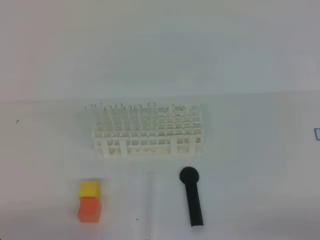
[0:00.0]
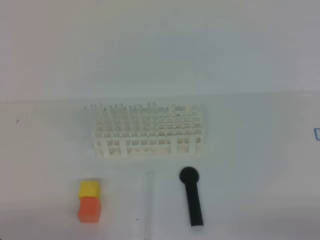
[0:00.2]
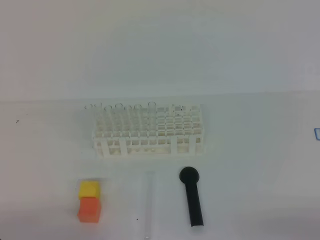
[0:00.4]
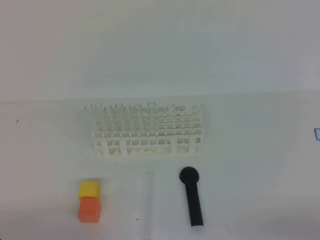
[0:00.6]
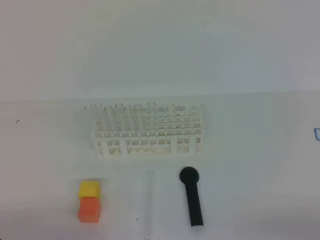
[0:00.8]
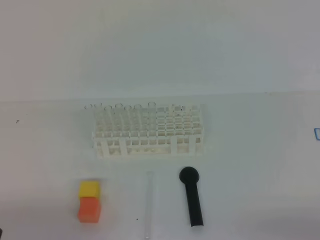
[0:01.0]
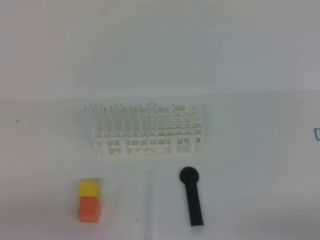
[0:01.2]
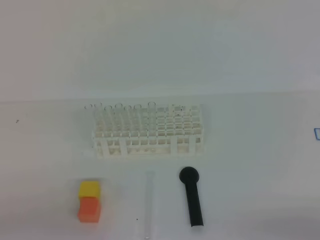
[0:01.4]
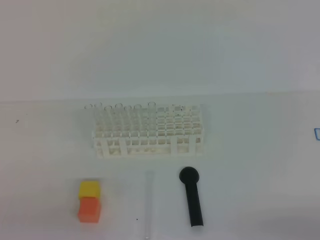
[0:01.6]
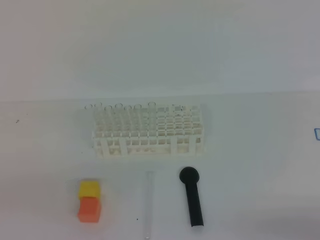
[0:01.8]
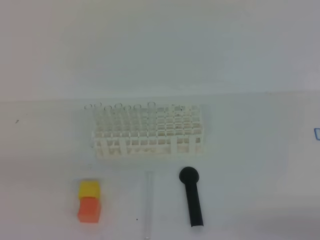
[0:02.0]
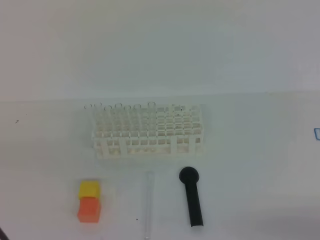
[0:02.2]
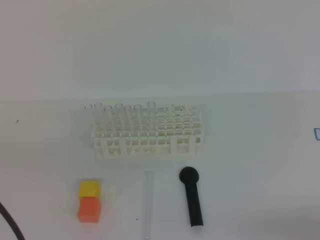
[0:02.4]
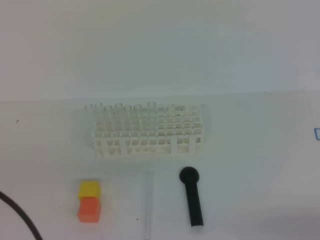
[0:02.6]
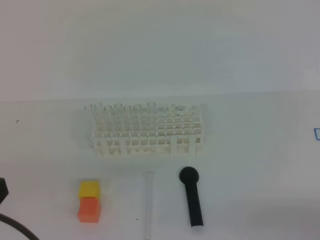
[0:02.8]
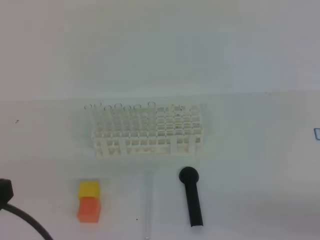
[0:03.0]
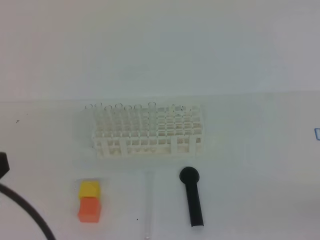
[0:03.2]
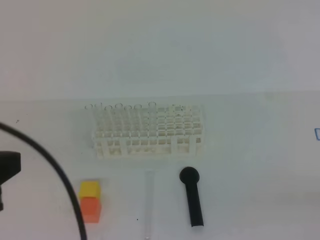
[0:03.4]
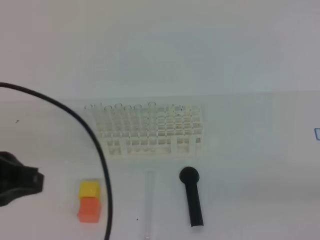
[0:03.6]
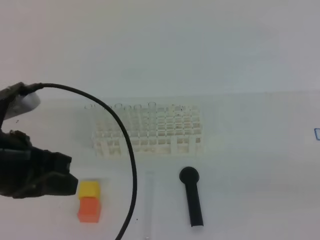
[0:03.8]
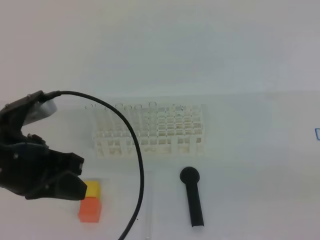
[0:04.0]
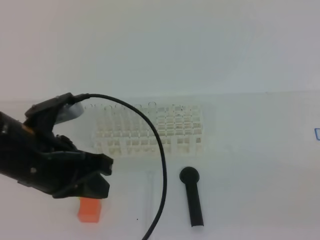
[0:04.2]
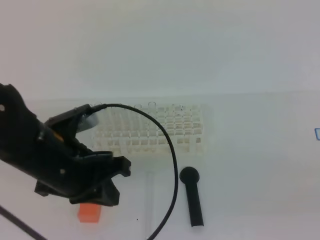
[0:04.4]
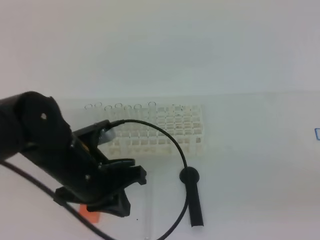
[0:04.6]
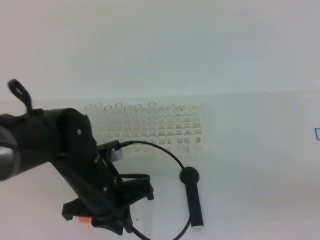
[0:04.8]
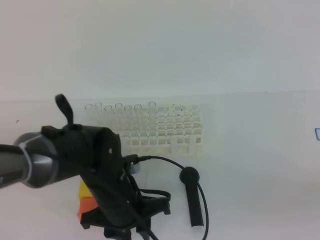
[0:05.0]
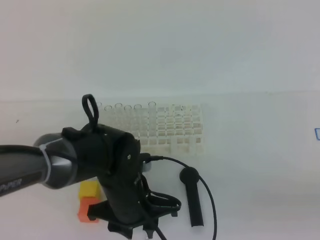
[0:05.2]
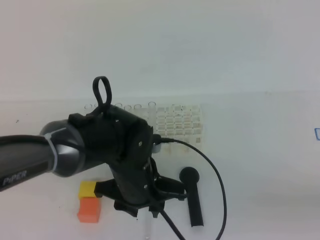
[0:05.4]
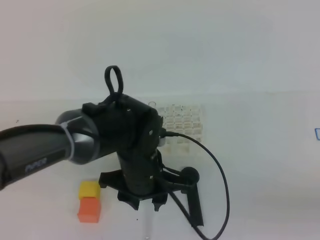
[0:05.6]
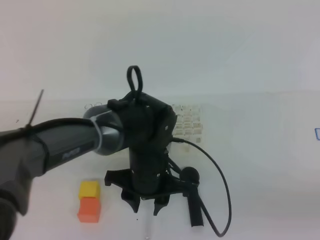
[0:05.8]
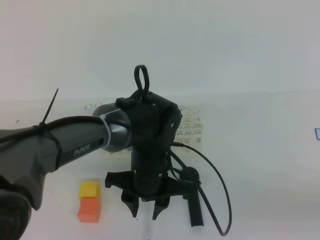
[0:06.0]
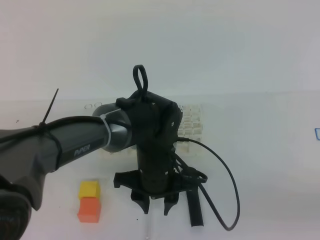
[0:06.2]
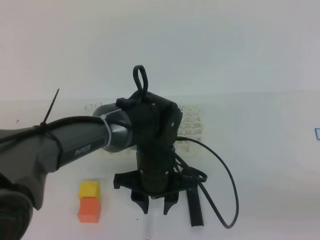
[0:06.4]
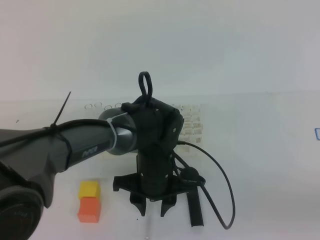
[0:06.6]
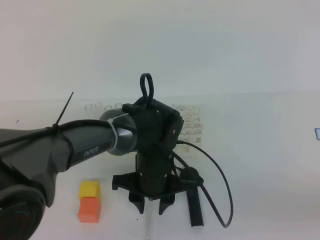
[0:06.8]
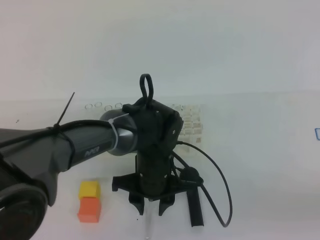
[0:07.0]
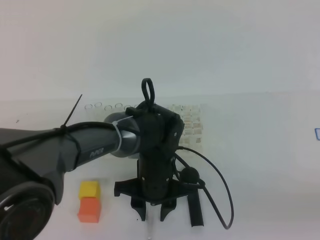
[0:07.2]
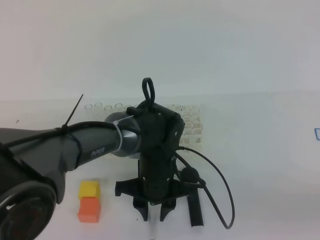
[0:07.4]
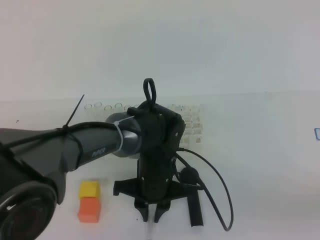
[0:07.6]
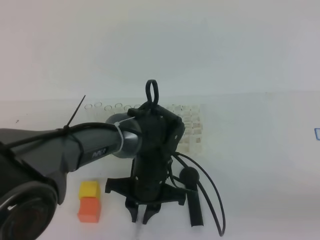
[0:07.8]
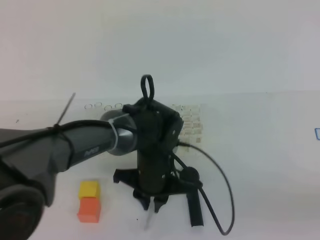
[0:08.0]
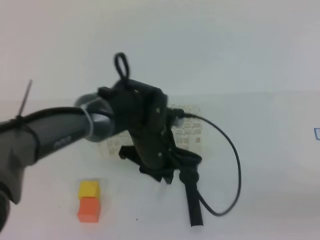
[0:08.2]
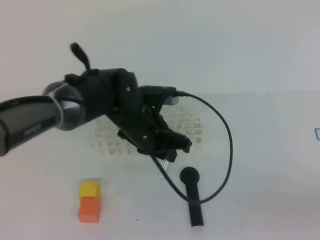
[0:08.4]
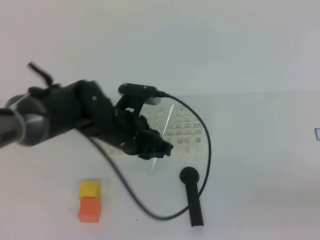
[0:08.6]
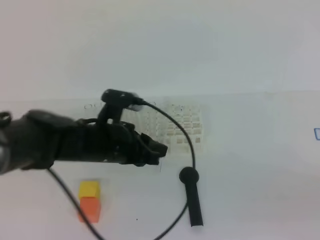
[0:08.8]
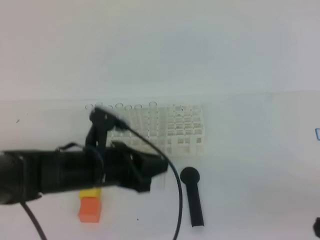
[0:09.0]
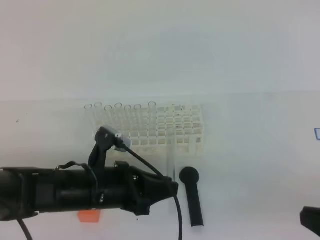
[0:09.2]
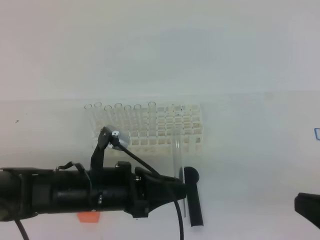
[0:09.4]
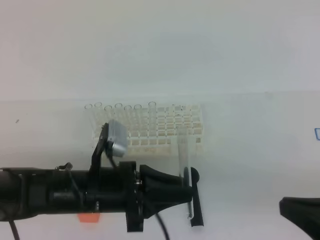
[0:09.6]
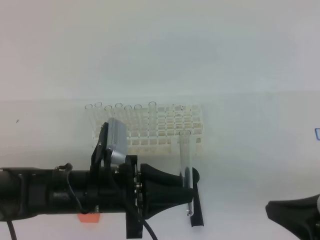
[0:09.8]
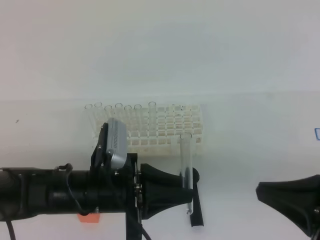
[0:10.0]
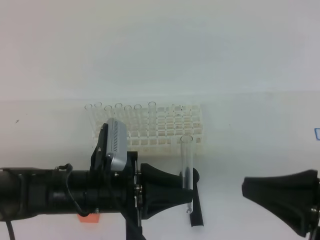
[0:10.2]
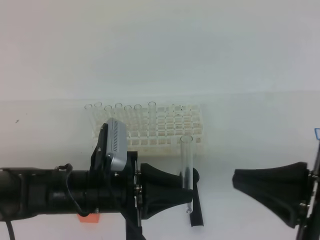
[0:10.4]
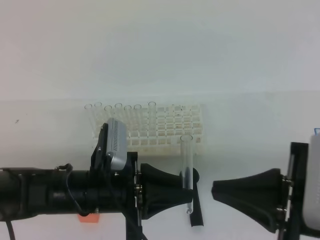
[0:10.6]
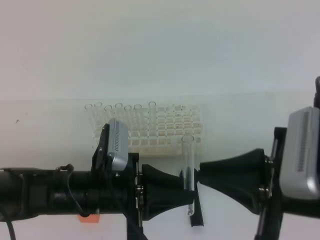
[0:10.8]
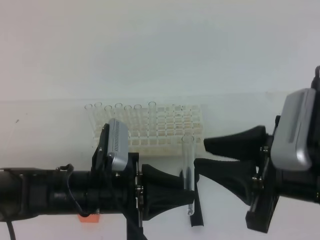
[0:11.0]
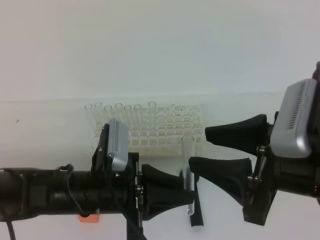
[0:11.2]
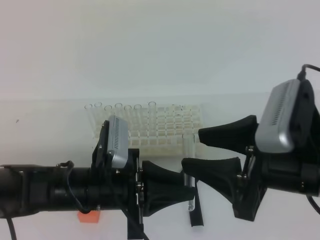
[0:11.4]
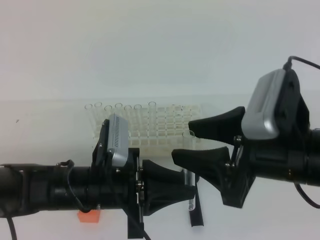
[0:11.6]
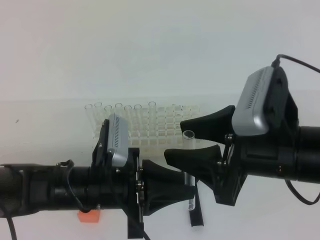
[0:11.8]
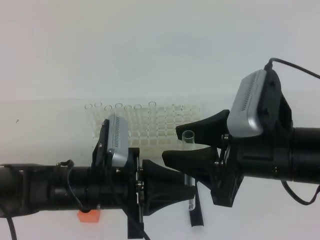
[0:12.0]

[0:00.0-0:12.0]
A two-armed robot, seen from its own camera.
0:01.6 to 0:03.0: The left gripper shifts about 10 cm upward.
0:03.0 to 0:04.4: The right gripper is displaced upward by roughly 10 cm, while the left gripper travels forward, to the right and downward by approximately 20 cm.
0:04.4 to 0:06.0: The left gripper goes some 20 cm to the right, downward and forward, and opens up.
0:06.0 to 0:07.6: The left gripper closes its fingers.
0:07.6 to 0:09.0: The left gripper goes approximately 10 cm to the left.
0:09.0 to 0:10.4: The left gripper heads backward, covering roughly 5 cm. Meanwhile the right gripper travels to the left and forward by roughly 10 cm.
0:10.4 to 0:12.0: The right gripper moves forward and to the left, about 10 cm, and opens up.

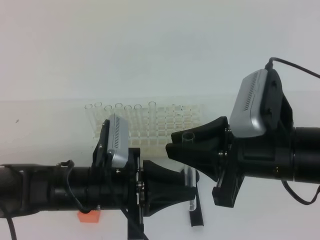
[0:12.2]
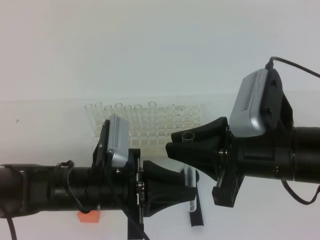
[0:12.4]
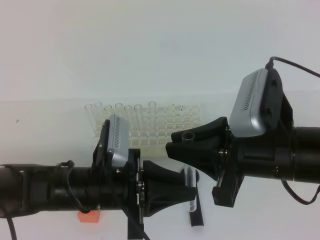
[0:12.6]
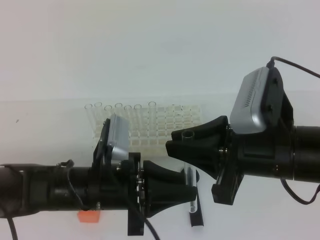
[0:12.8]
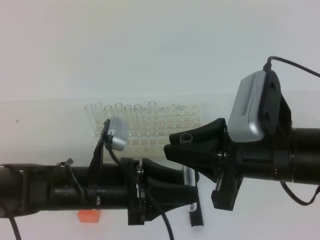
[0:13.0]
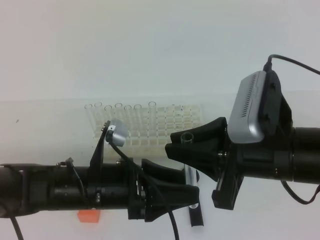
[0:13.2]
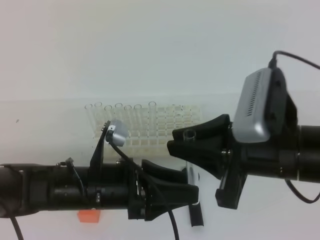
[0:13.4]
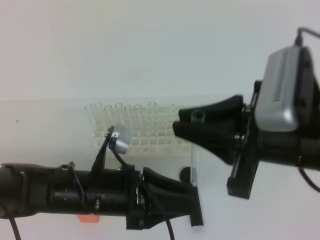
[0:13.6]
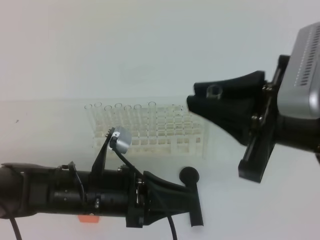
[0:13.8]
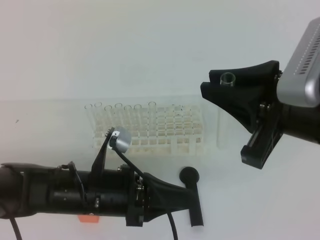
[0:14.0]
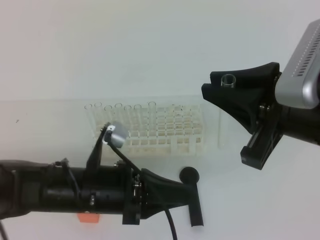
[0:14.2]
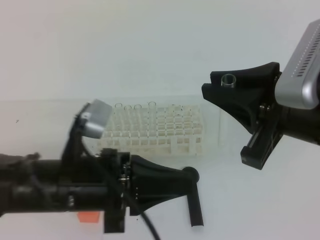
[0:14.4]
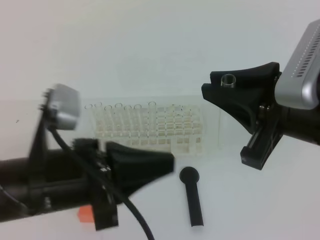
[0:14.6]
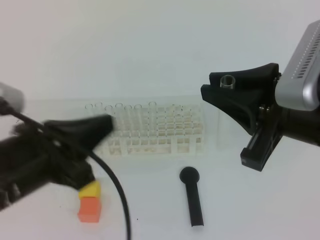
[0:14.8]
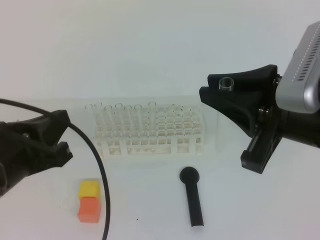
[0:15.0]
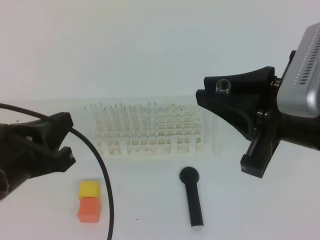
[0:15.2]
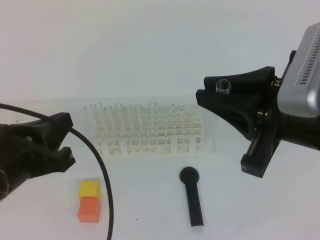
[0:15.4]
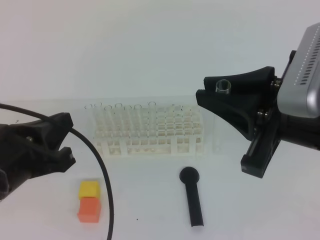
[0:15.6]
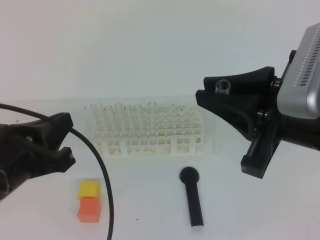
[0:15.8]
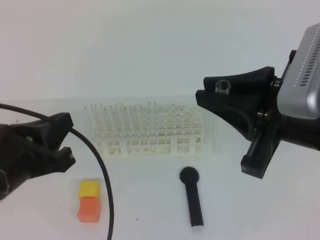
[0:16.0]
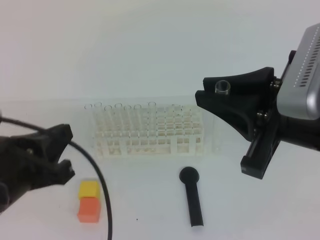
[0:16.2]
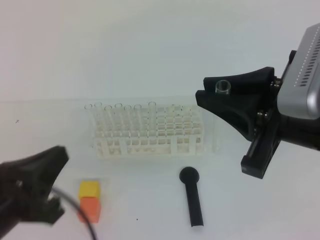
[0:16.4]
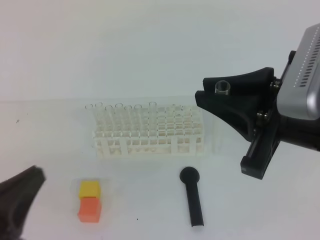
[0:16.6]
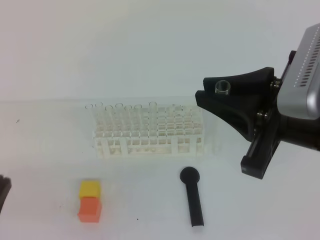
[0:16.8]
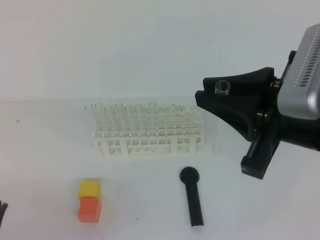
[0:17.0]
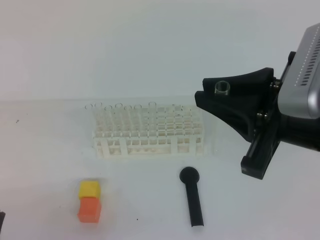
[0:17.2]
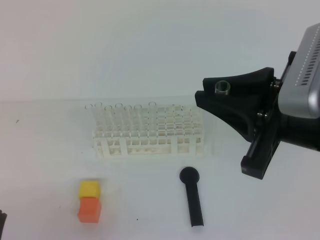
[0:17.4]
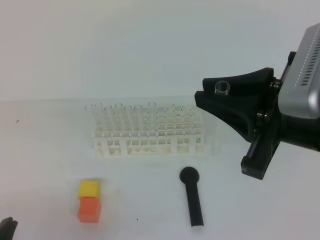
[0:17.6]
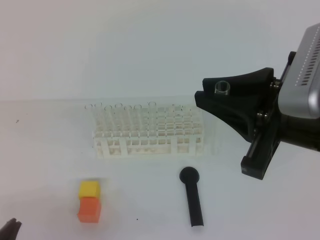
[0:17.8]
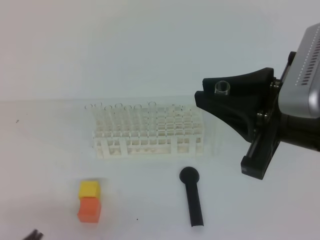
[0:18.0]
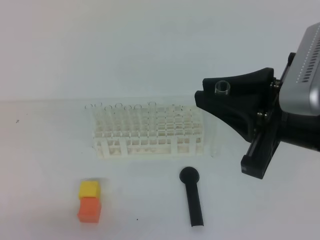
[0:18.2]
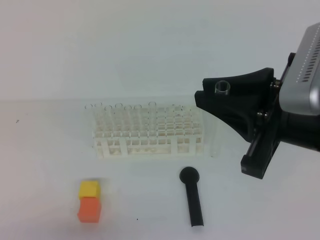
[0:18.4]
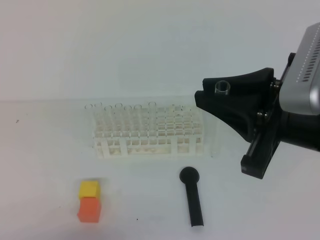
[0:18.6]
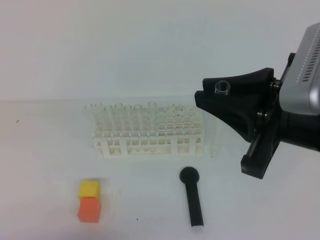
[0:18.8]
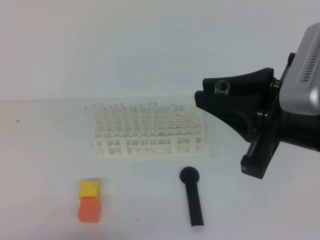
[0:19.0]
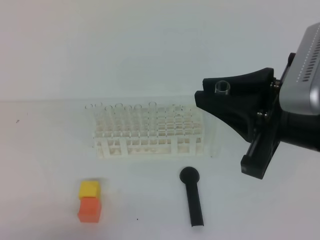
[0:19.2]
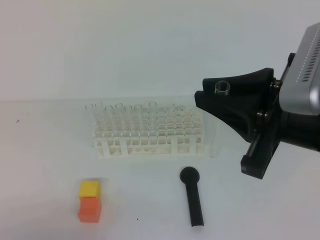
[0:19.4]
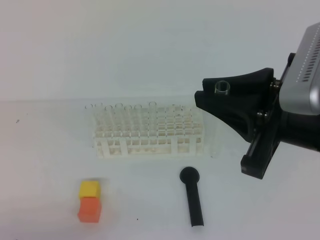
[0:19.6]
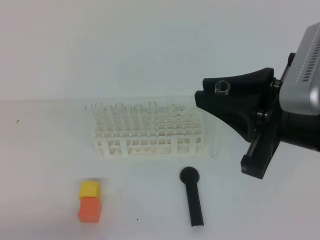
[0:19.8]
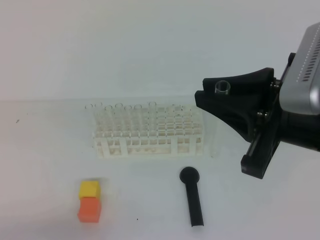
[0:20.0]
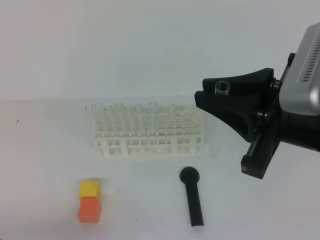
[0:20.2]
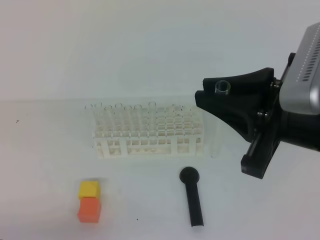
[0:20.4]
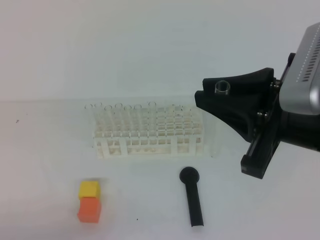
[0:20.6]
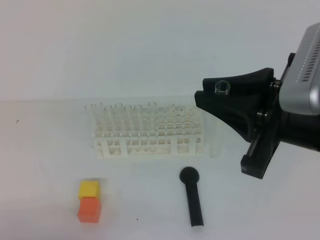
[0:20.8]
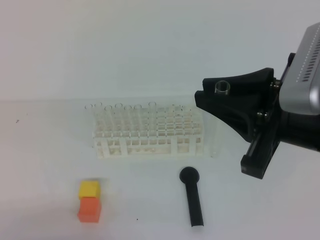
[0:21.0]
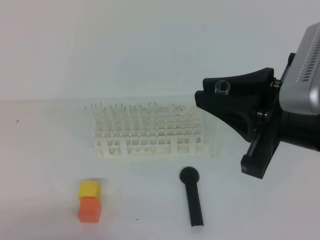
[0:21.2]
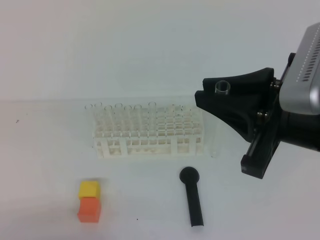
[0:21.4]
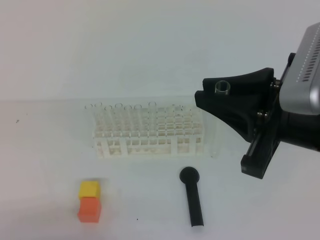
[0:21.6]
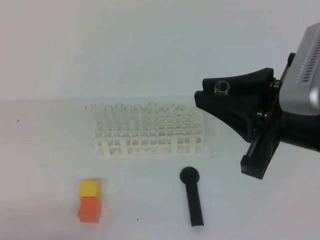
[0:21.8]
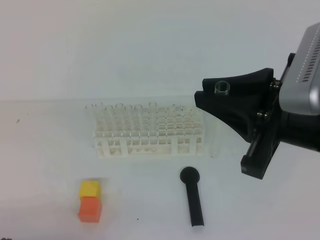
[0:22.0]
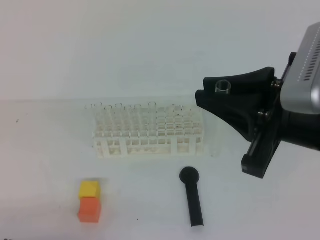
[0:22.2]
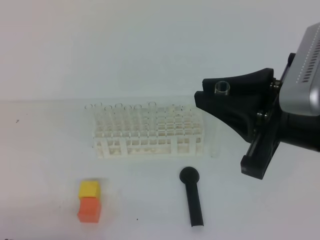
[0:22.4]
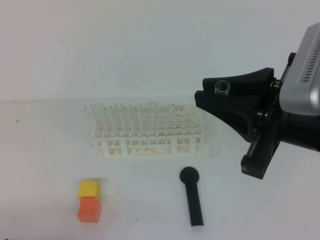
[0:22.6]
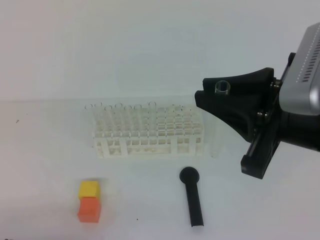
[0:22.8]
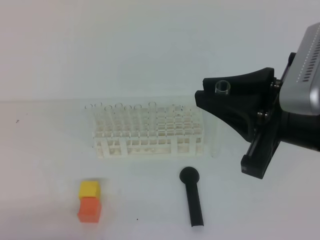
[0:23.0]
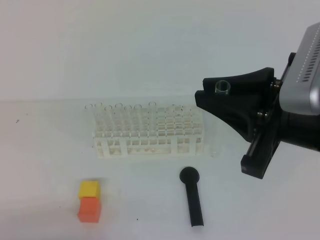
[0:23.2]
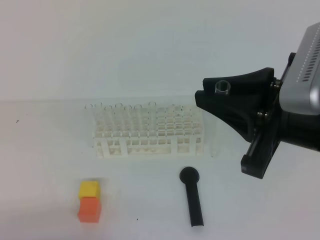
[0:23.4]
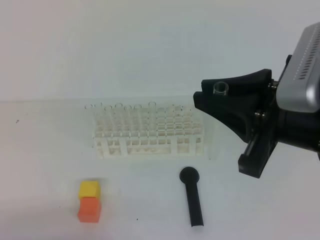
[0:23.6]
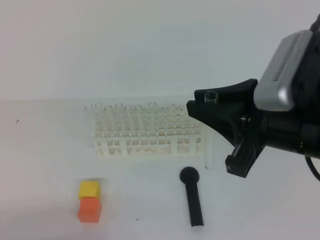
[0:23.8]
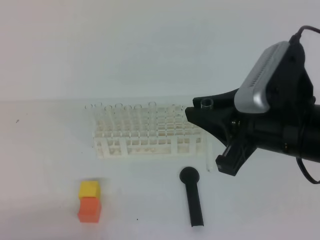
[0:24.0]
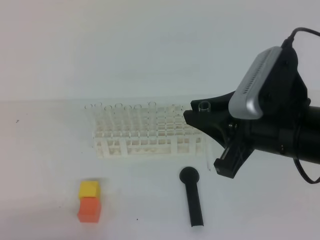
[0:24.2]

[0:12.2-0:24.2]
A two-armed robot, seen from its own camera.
0:12.2 to 0:13.8: The right gripper moves upward, approximately 5 cm. The left gripper opens up.
0:13.8 to 0:15.2: The left gripper is displaced upward and to the left by approximately 15 cm, and closes up.
0:15.2 to 0:16.6: The left gripper goes about 5 cm backward.
0:16.6 to 0:18.2: The left gripper moves downward, about 10 cm.
0:22.6 to 0:24.2: The right gripper moves about 5 cm.
